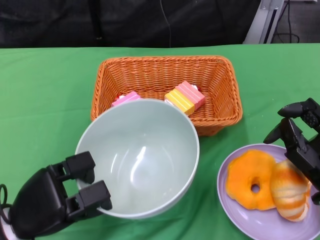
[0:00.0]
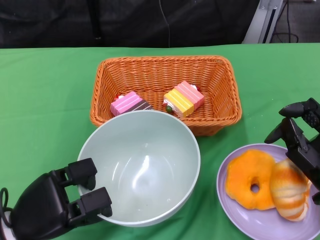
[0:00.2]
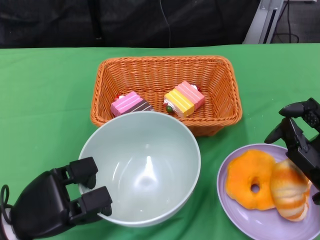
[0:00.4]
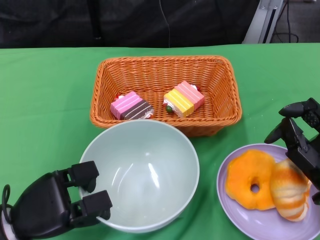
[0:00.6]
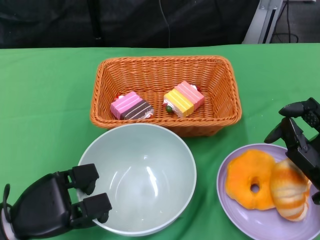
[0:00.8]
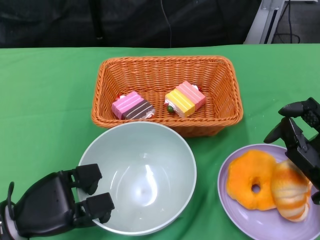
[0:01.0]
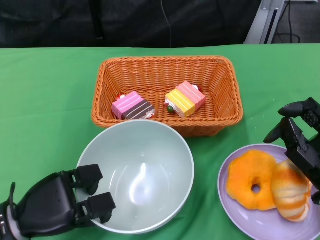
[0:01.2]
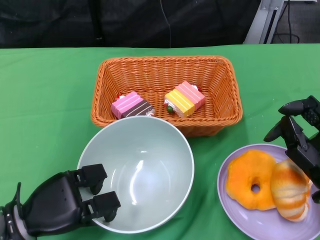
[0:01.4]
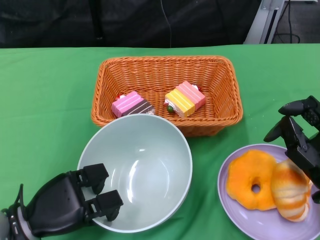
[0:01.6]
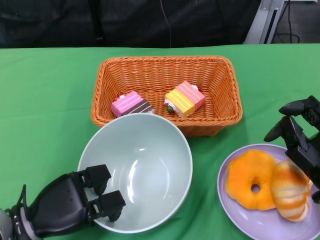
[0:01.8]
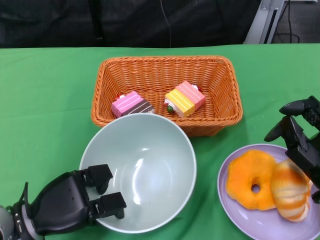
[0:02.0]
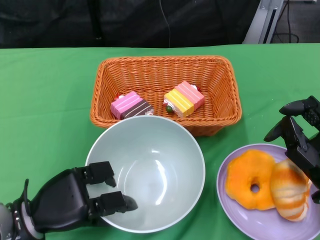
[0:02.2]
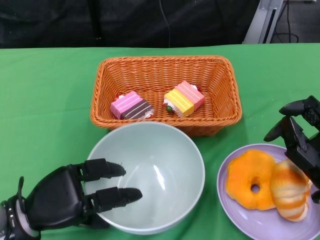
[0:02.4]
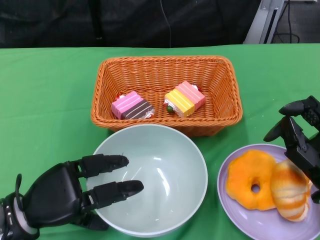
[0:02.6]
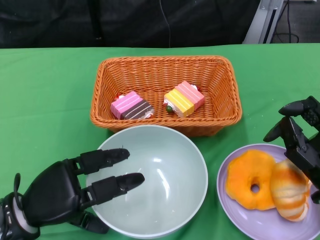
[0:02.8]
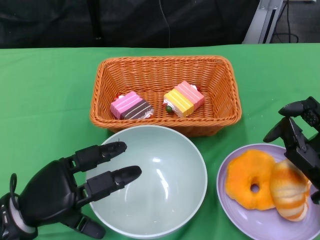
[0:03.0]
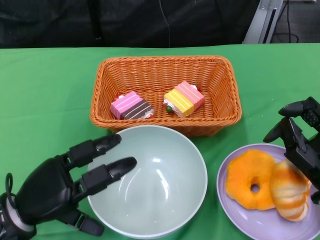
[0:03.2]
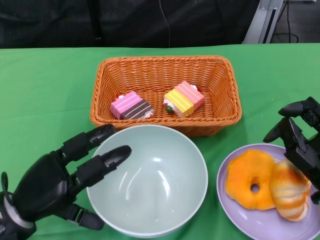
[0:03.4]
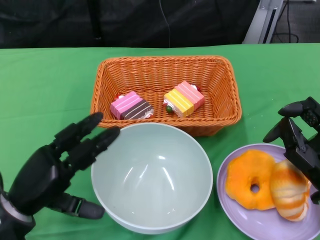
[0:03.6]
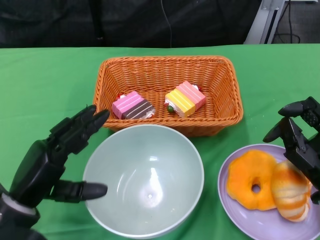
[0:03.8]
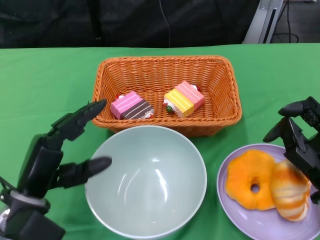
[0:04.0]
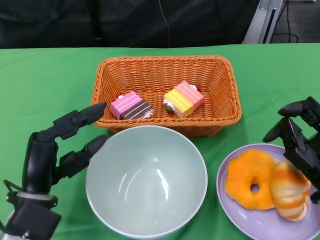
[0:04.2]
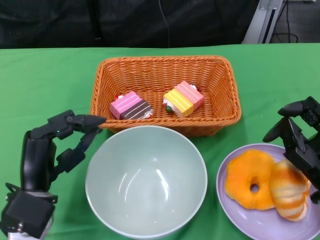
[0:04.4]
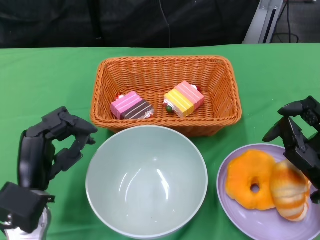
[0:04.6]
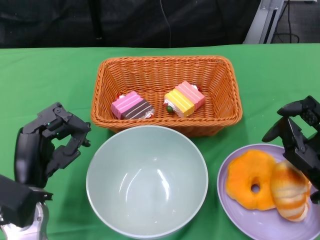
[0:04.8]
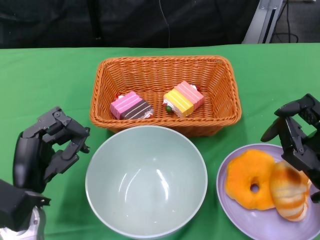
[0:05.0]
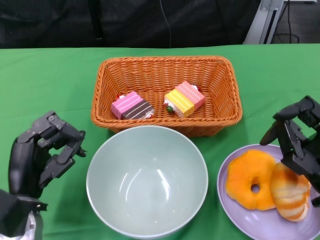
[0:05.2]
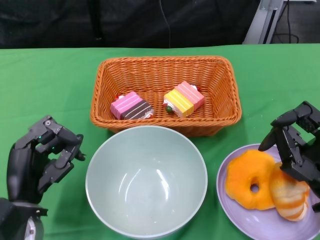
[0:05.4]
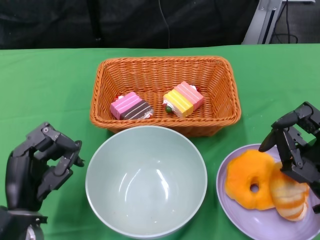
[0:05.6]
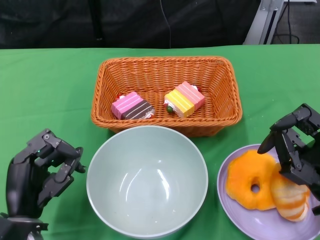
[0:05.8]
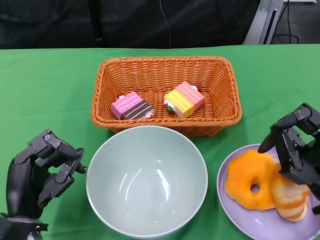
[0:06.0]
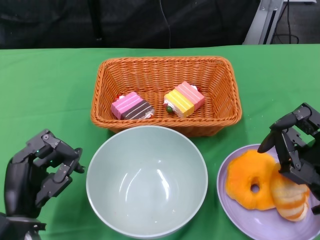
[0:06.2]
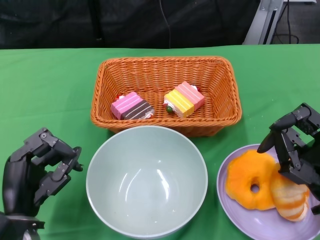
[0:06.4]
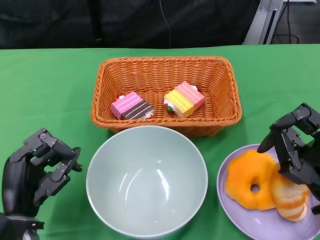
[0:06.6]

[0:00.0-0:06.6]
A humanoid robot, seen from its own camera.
Step, 0:00.0 to 0:03.2: Place the bowl on the table with the left gripper.
0:00.0 to 0:03.2: The hands stay close to where they were, moving slightly.
0:05.0 to 0:06.6: The hands move only a little.

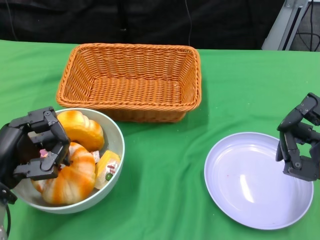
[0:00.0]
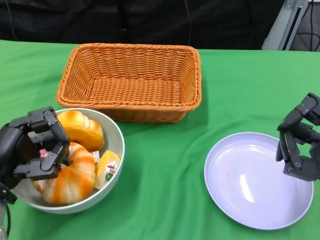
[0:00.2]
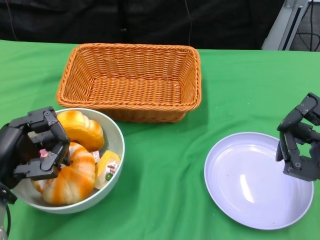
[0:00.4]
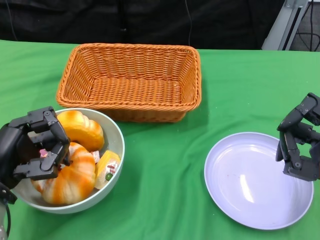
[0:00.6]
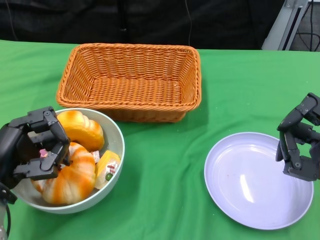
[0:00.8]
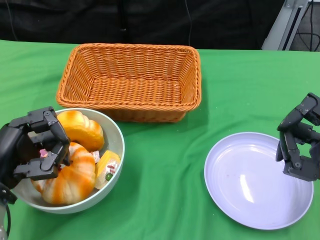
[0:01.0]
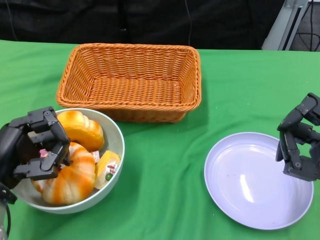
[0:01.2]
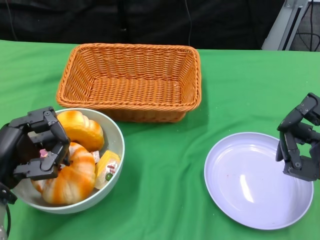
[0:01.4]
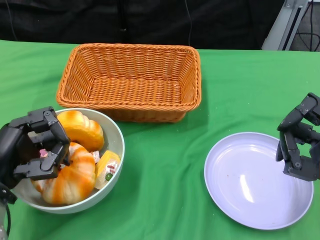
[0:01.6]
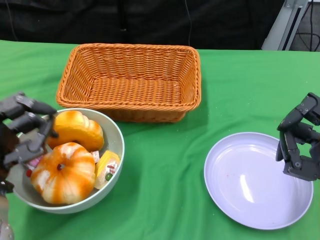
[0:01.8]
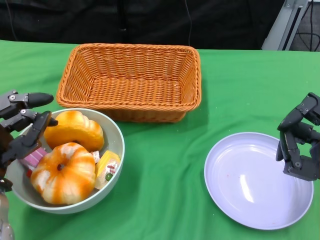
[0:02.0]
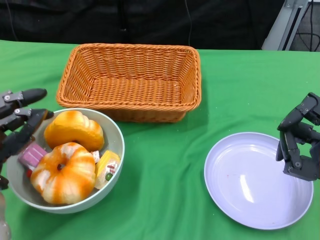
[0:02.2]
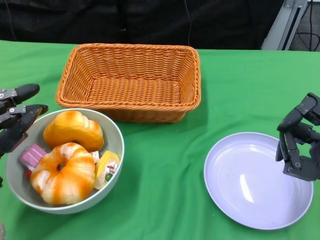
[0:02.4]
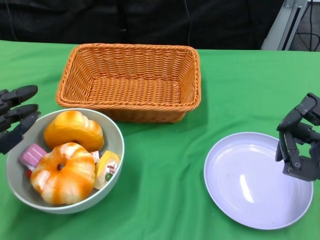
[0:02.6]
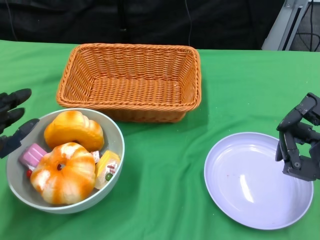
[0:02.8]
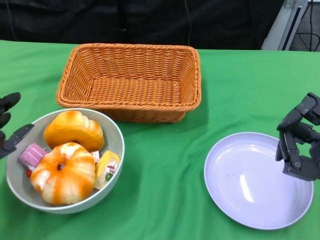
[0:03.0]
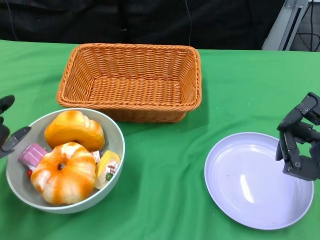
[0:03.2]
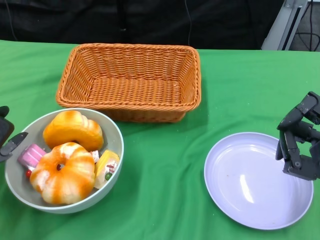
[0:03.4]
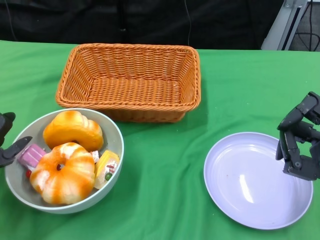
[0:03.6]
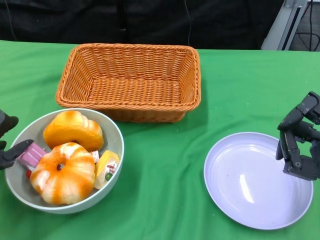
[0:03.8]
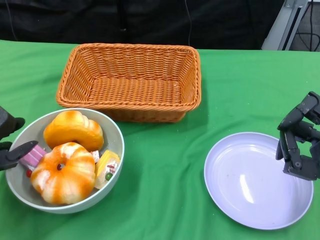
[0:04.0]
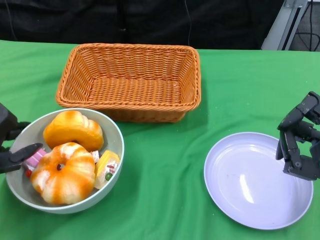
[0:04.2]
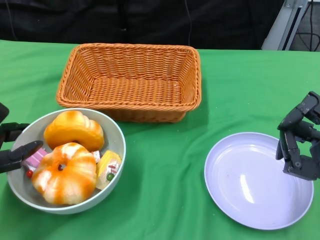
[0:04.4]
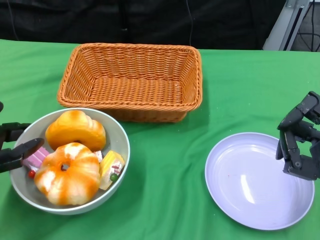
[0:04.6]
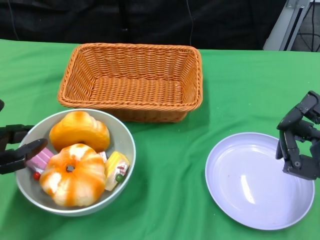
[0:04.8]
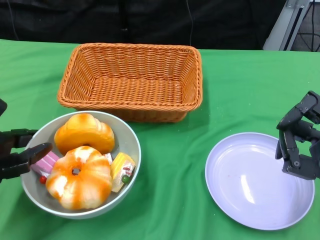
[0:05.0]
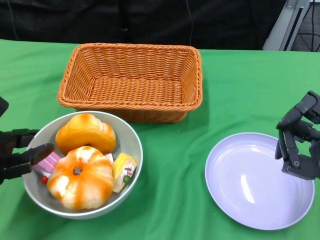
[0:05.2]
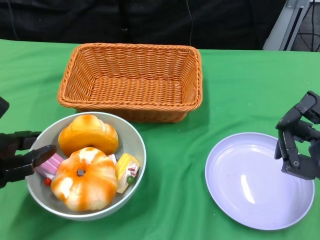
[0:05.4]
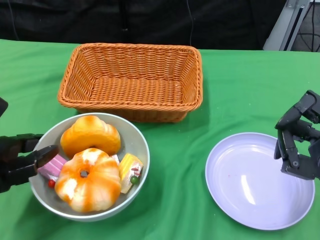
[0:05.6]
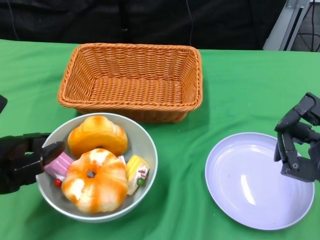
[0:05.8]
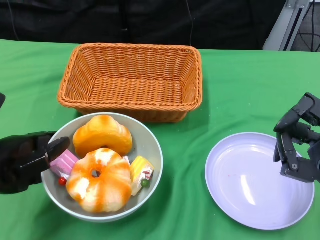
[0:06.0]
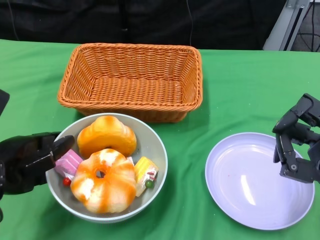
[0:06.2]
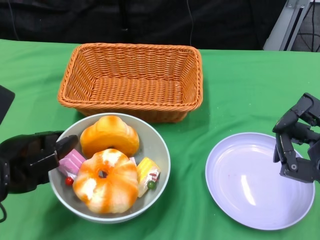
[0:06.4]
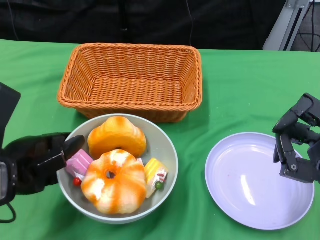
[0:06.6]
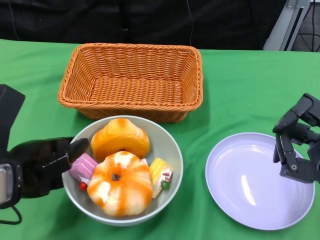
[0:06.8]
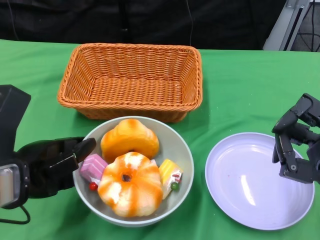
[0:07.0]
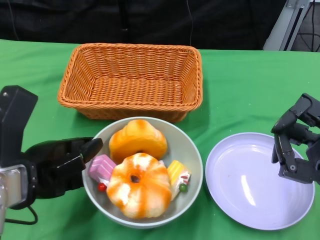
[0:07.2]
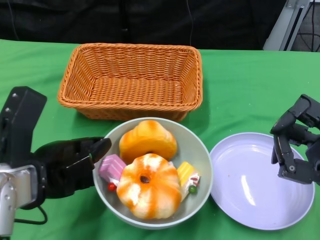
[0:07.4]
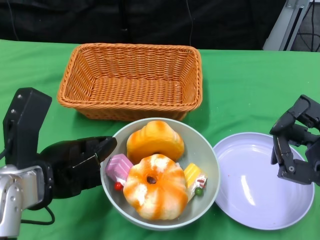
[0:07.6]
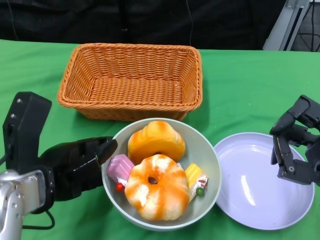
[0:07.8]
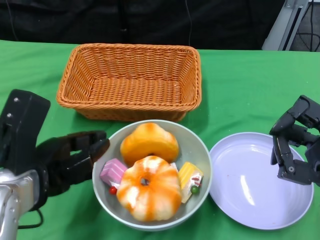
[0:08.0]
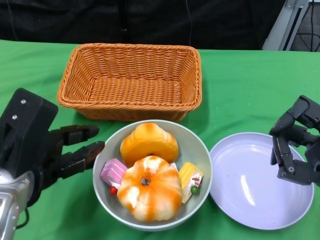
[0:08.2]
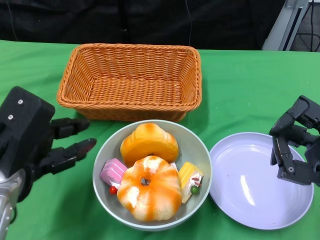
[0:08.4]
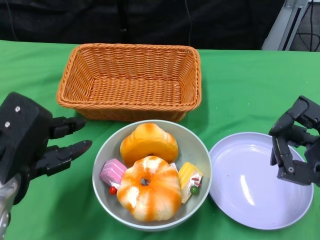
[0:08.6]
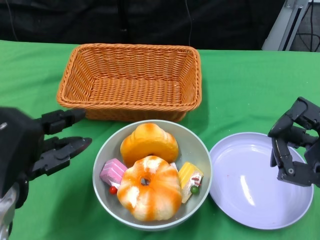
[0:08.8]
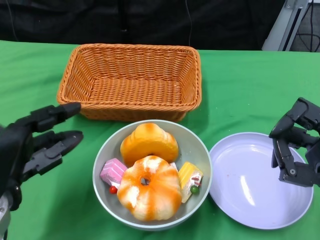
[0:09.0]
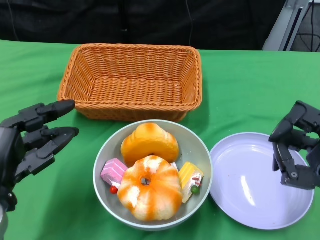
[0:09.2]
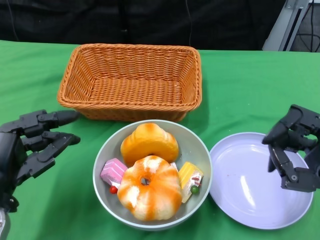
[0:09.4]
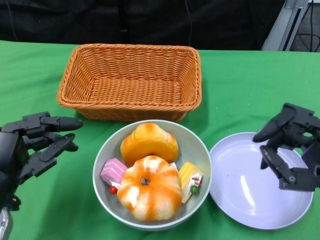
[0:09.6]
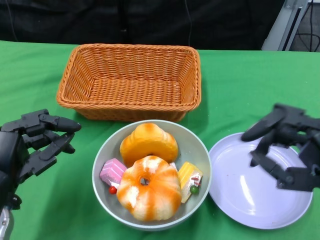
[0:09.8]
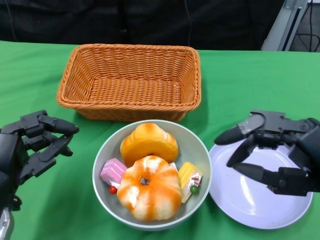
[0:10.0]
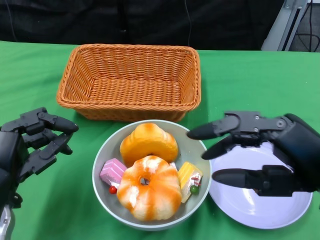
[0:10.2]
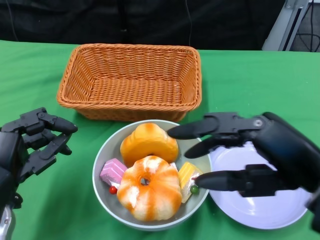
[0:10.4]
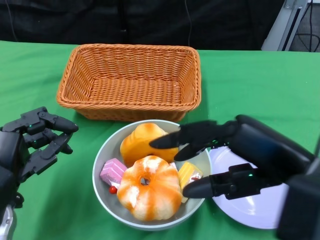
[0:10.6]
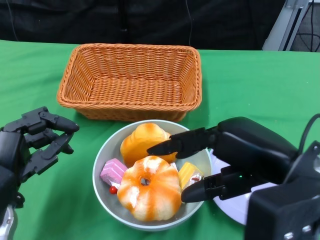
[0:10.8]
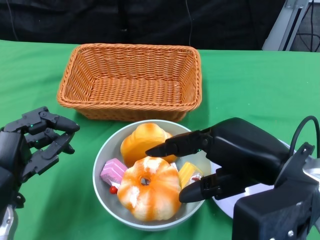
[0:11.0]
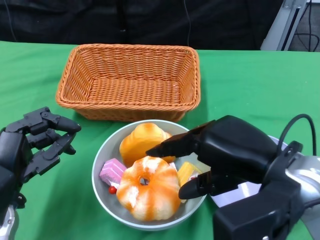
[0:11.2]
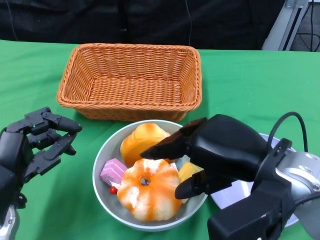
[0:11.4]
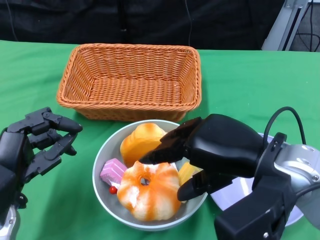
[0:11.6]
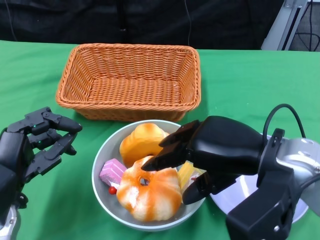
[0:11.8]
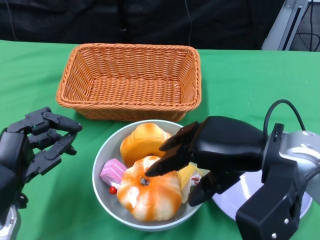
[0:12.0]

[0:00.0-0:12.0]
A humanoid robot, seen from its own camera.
Step, 0:00.0 to 0:07.6: Push the bowl to the center of the table using the left gripper.
0:06.0 to 0:07.6: The left hand moves to the right, some 5 cm.
0:09.0 to 0:10.4: The right hand shifts roughly 10 cm upward.
0:10.4 to 0:12.0: The right hand heads forward, covering approximately 5 cm.

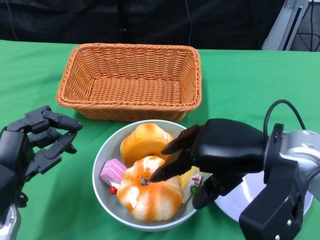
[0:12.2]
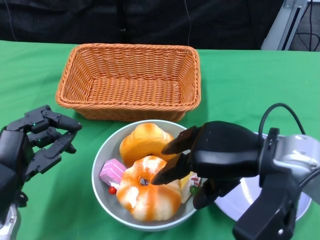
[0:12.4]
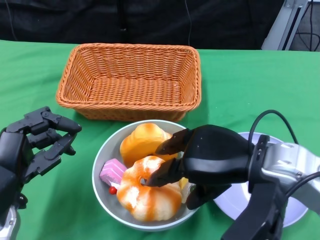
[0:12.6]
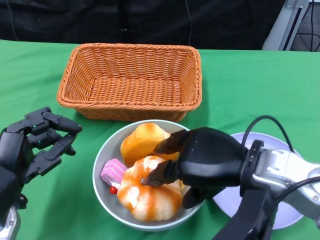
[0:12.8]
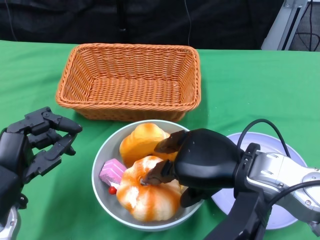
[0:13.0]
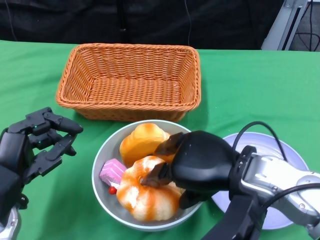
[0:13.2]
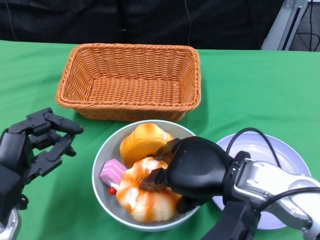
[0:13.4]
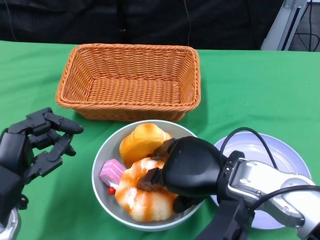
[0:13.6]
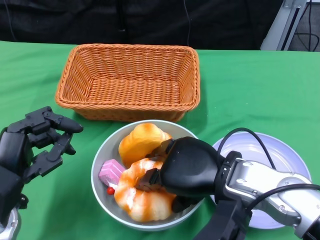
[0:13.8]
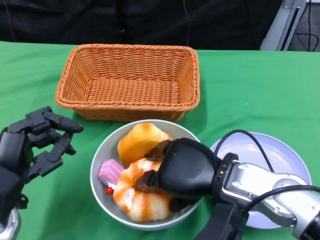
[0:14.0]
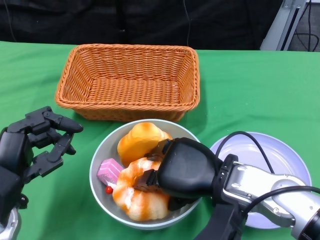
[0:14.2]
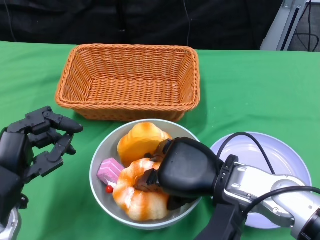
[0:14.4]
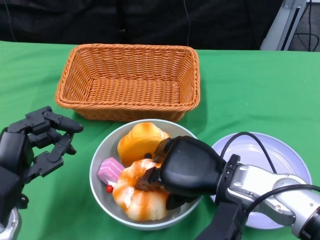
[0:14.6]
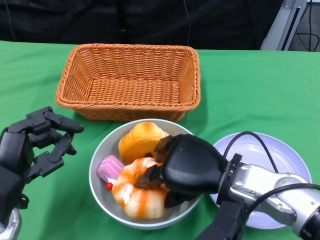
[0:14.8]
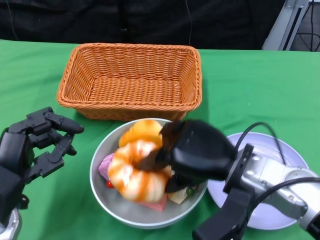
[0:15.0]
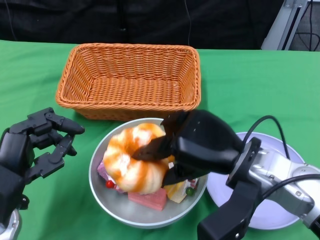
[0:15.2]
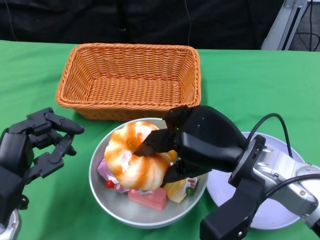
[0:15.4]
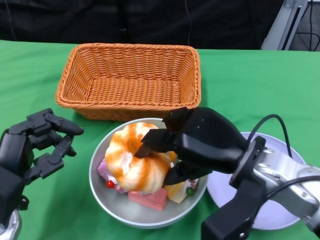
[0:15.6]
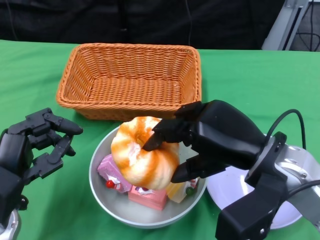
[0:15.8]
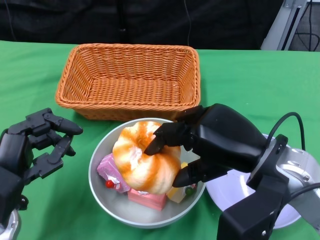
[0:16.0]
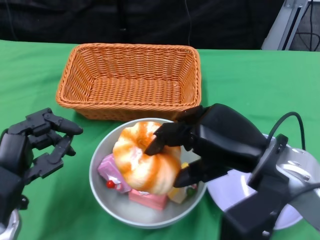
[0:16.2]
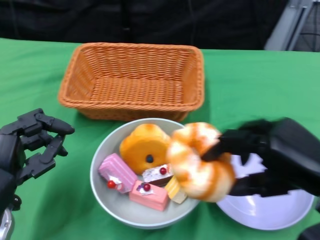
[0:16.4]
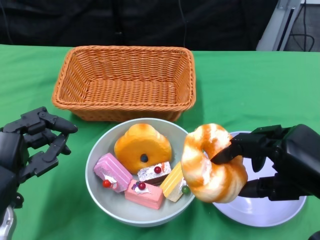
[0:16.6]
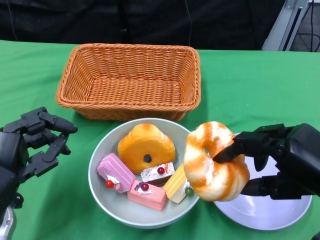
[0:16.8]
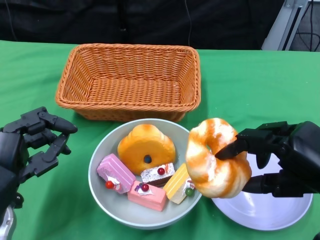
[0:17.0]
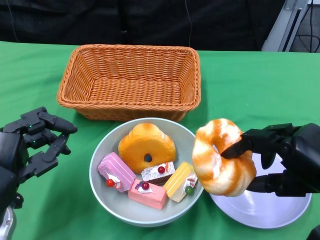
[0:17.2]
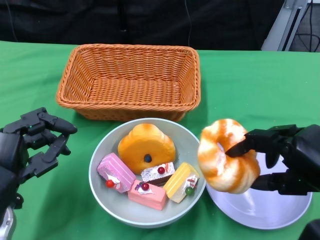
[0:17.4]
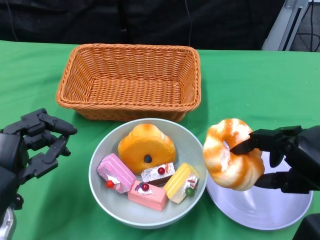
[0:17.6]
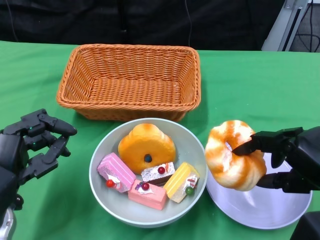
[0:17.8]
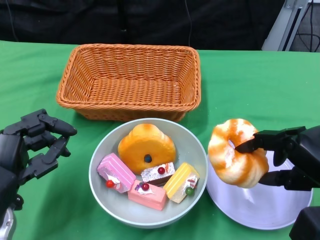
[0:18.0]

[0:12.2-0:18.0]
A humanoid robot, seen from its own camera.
0:12.2 to 0:13.6: The right hand changes place by roughly 5 cm.
0:15.0 to 0:16.6: The right hand shifts roughly 15 cm to the right and backward.
